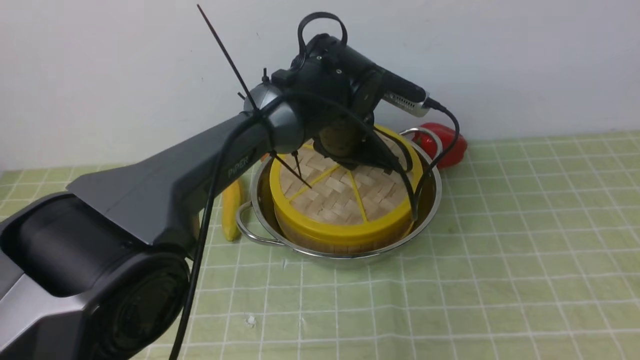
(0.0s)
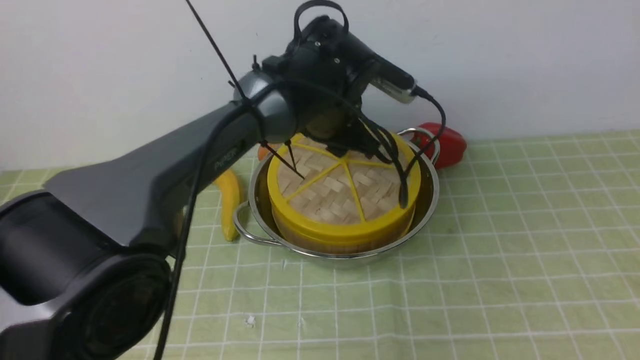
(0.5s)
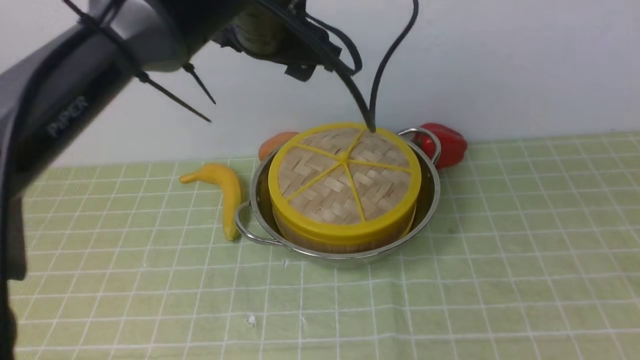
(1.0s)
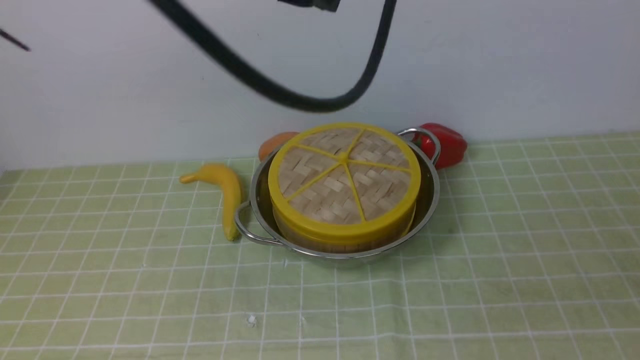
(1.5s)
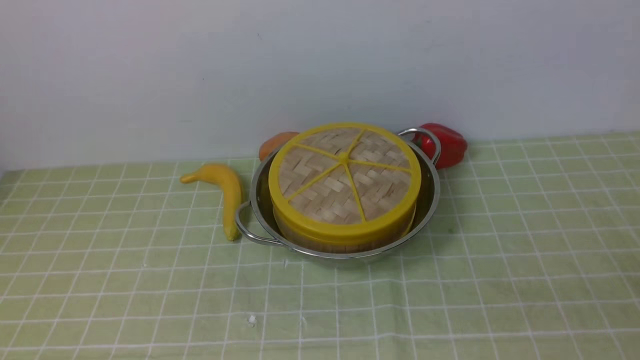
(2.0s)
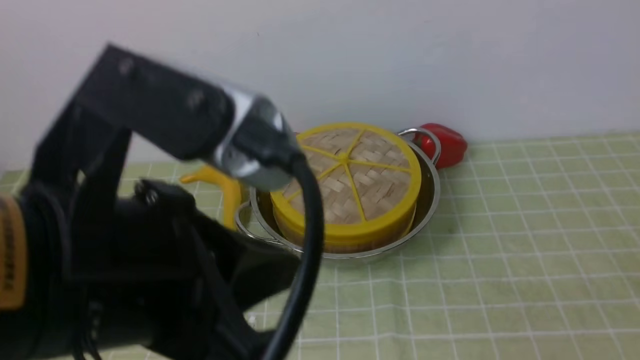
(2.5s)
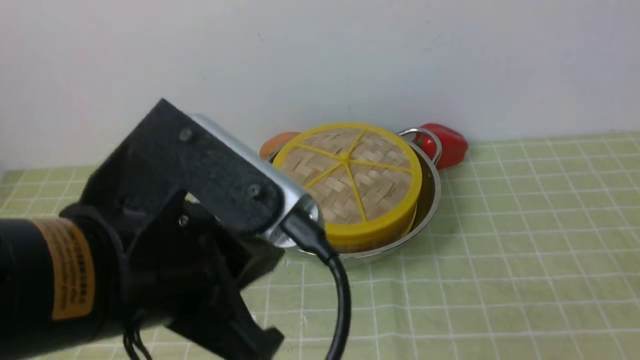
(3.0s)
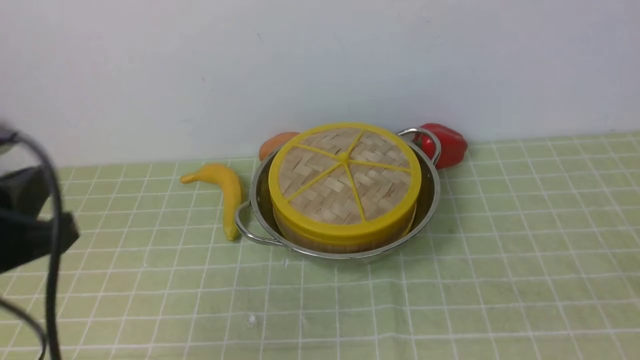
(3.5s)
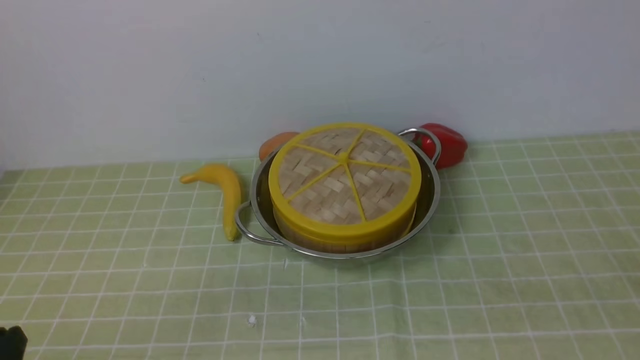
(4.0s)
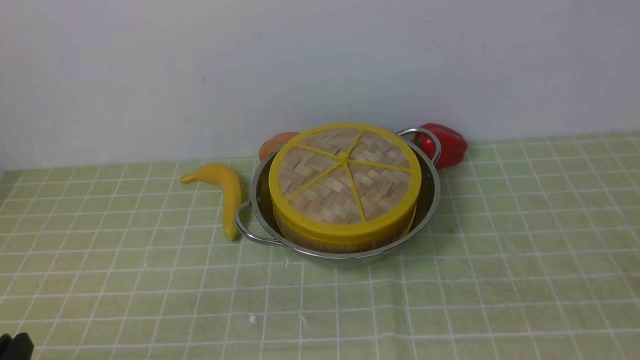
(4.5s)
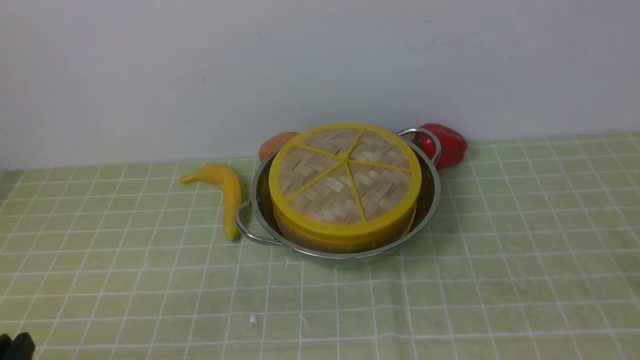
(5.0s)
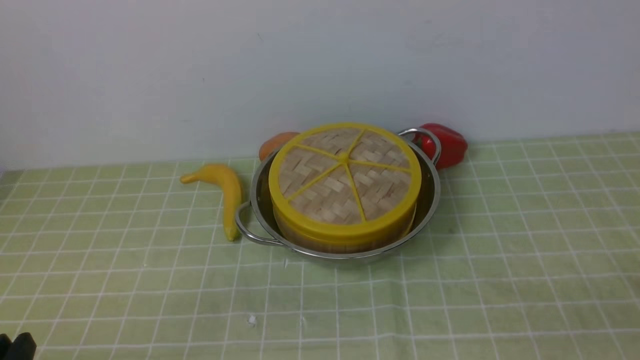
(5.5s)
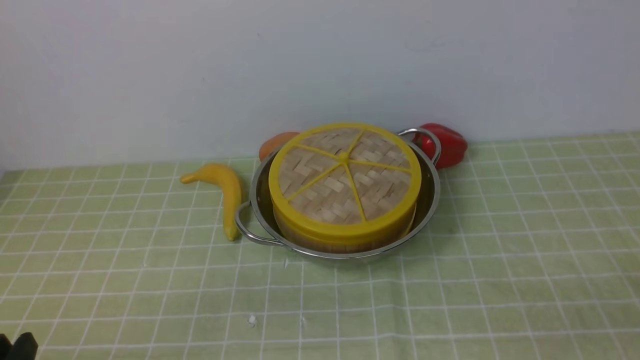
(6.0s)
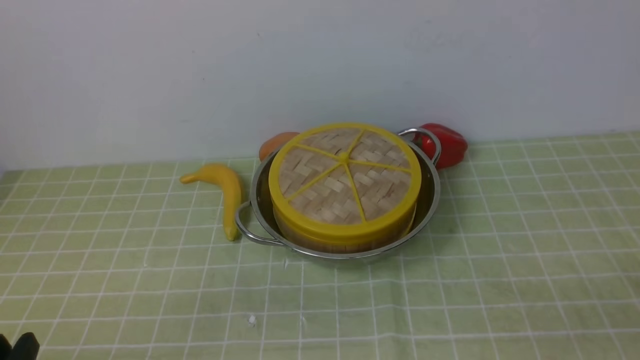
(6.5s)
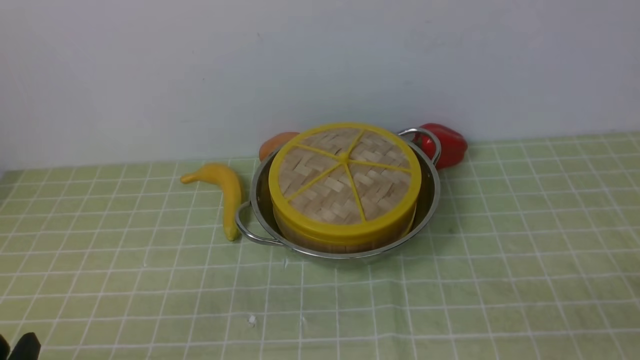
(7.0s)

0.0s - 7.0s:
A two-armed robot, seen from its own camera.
Task of the whole recording: place the steamer in the pot on the green tablecloth, and put the lid on the steamer.
0.0s - 2.0s: The left gripper goes about 40 cm upward and backward, and opens, then closes once more. Meanwhile the right gripper heads downward and backward, covering roughly 15 cm, and closes its fingers.
2.0s - 3.5s: The left gripper is displaced downward and to the left by roughly 25 cm.
3.5s - 5.0s: The left gripper moves downward and backward, about 15 cm.

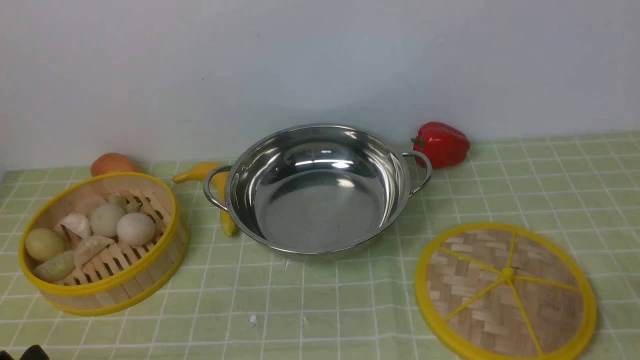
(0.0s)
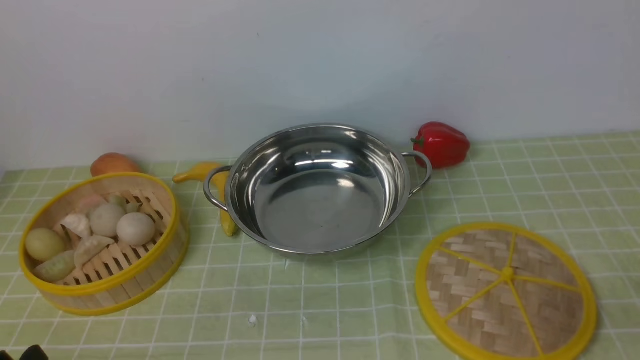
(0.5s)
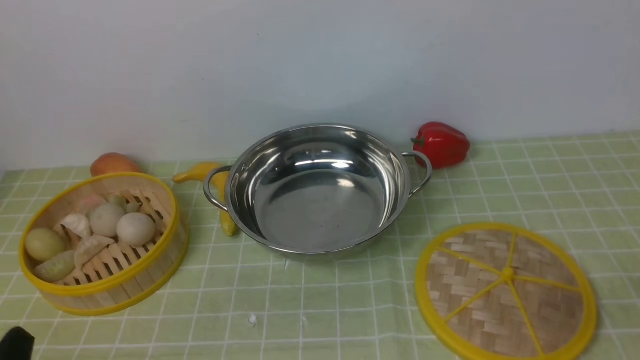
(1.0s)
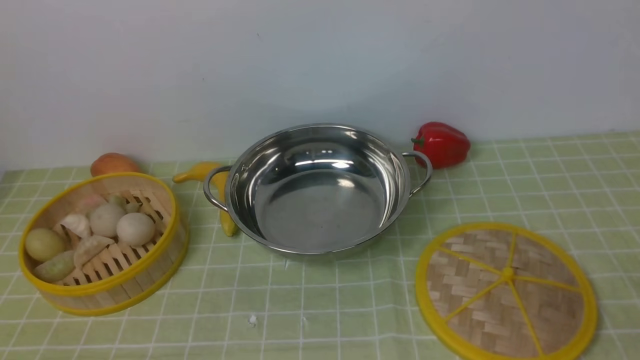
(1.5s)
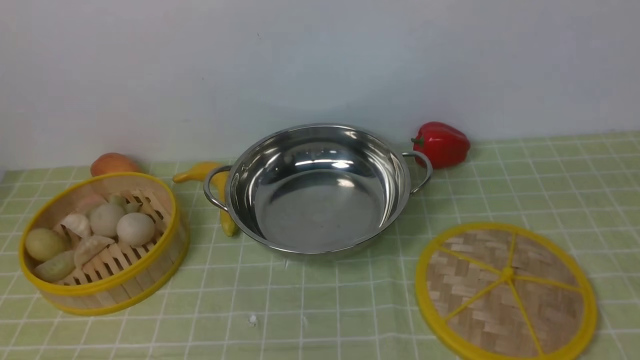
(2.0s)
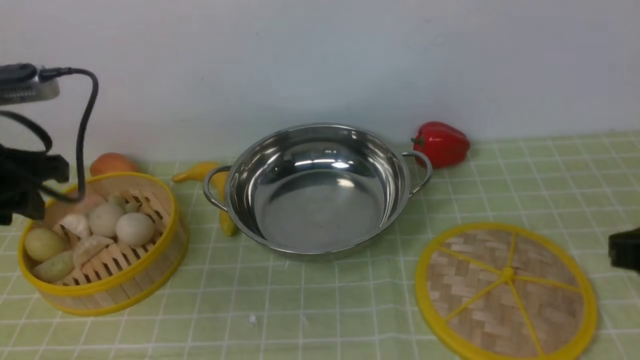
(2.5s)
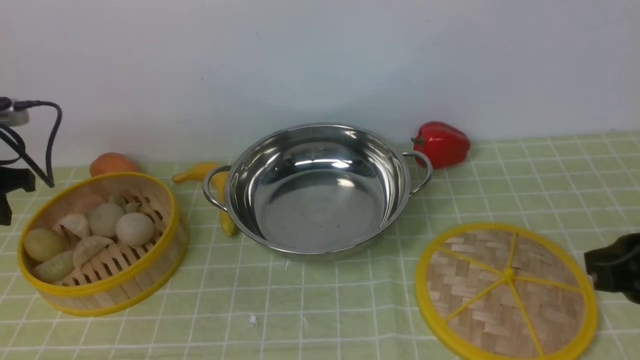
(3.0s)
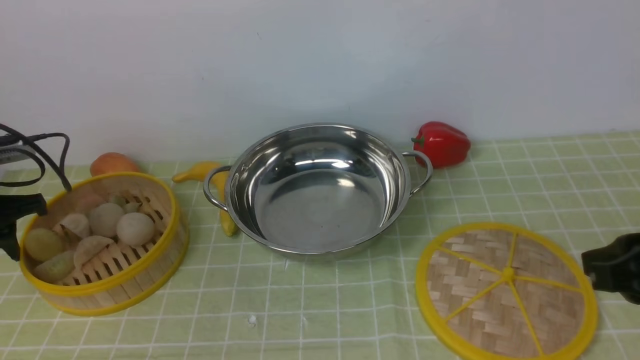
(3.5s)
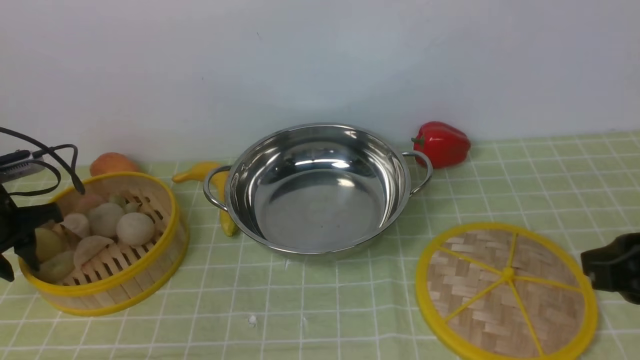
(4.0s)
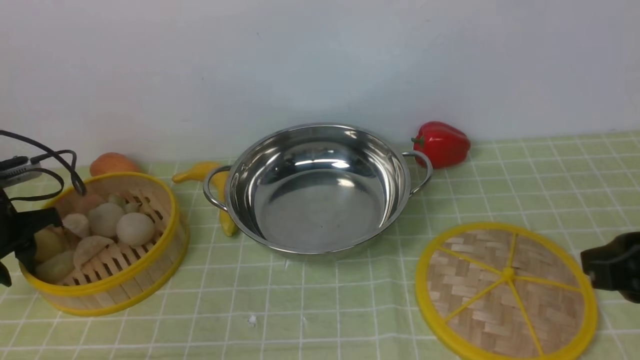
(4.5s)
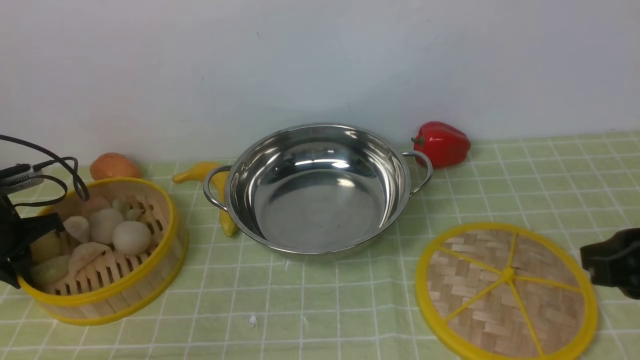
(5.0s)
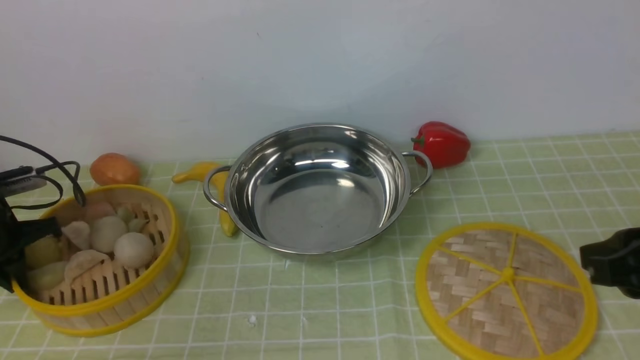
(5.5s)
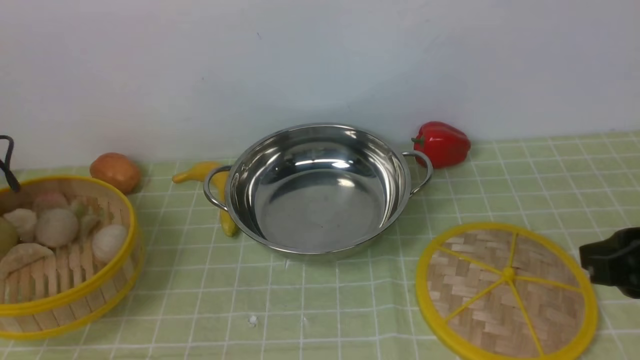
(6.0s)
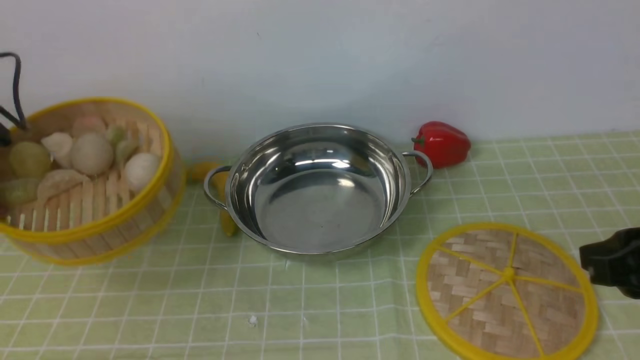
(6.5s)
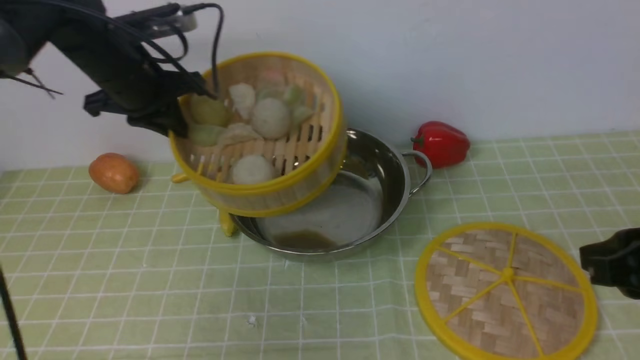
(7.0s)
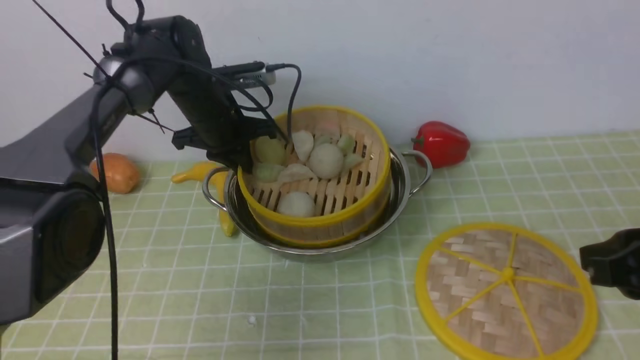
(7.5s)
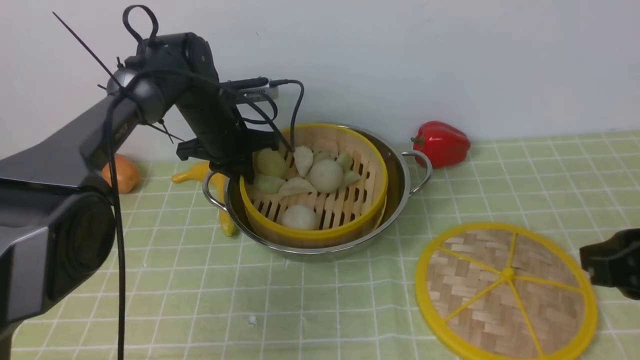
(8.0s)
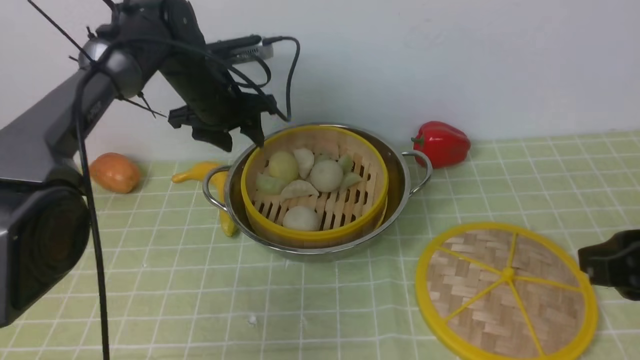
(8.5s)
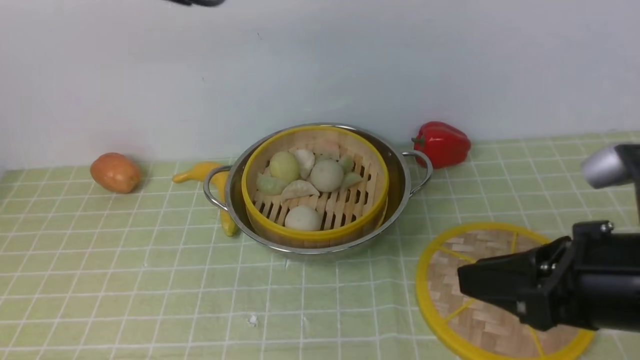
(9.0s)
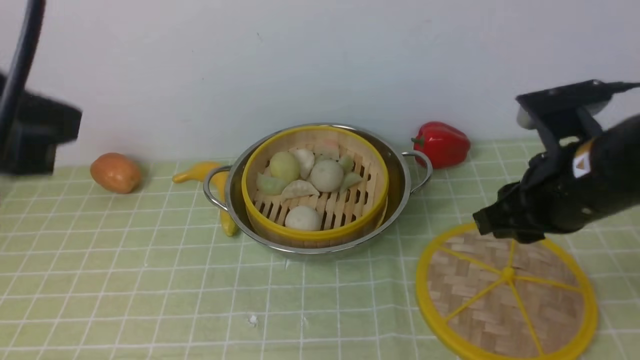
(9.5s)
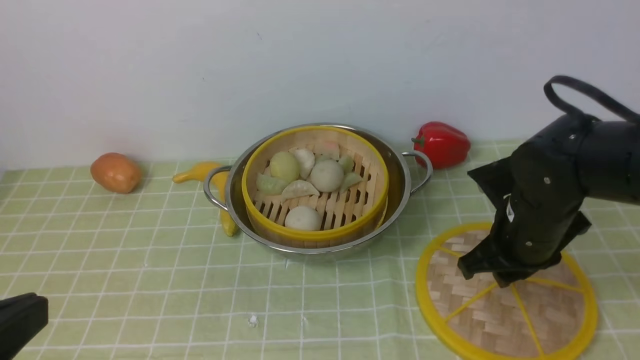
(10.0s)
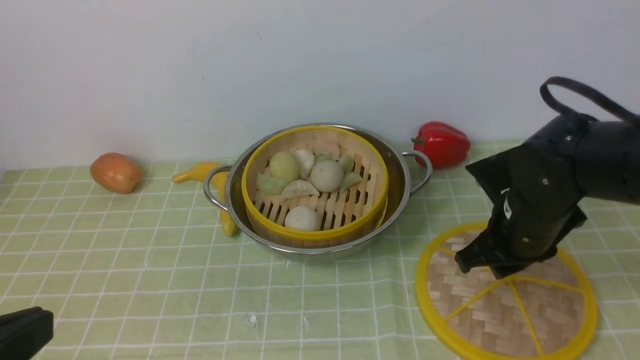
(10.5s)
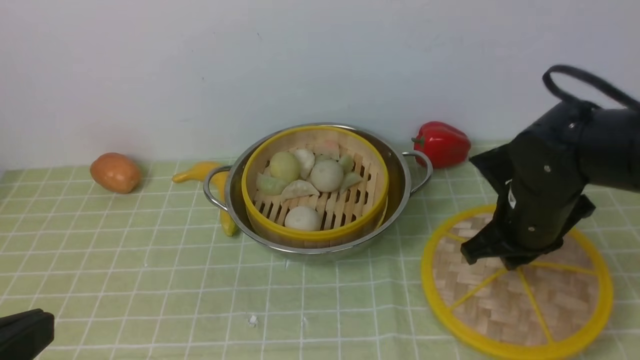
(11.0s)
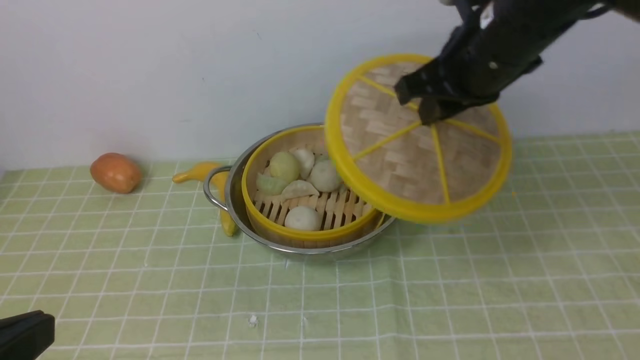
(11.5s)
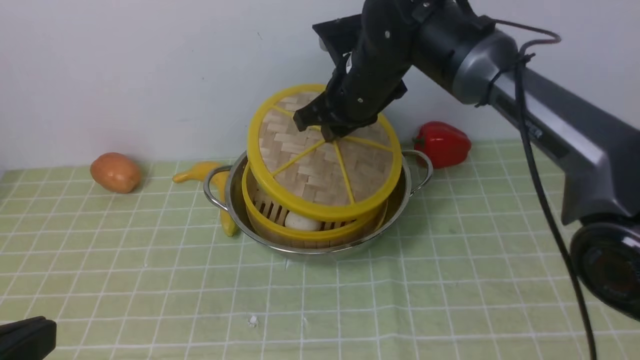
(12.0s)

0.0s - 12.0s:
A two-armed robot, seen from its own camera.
Task of the whole recording: place the steamer in the pot on the green tablecloth, and put the lid on the steamer.
Step, 0.0s - 6.0s: use the left arm to lift the steamer closest to it.
Step, 6.5s - 9.0s: use the left arm to put the steamer into the iron steamer pot in the middle.
Step, 9.5s - 11.0s: use the right arm to lift the lid of the steamer.
2.0s - 4.0s: The left gripper moves forward, downward and to the left, approximately 35 cm, while the right gripper travels forward and downward by approximately 10 cm.
4.0s - 6.0s: The left gripper changes place by some 5 cm, and closes up.
6.0s - 8.0s: The left gripper is displaced to the right and forward by some 30 cm.
8.0s - 10.0s: The right gripper is displaced forward, to the left and downward by some 15 cm. Meanwhile the left gripper moves backward, roughly 40 cm, and closes up.
10.0s - 12.0s: The right gripper travels to the left, forward and upward by approximately 20 cm.

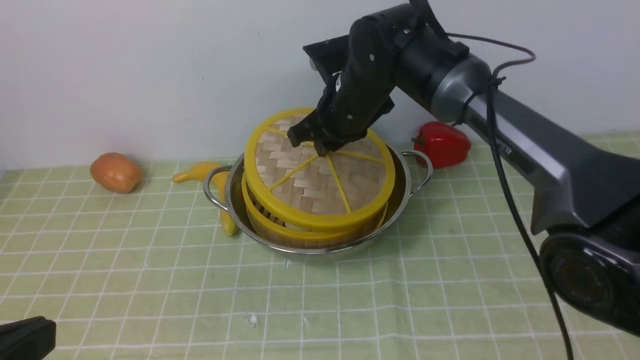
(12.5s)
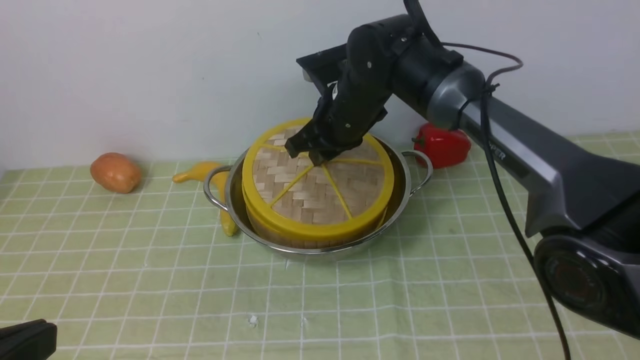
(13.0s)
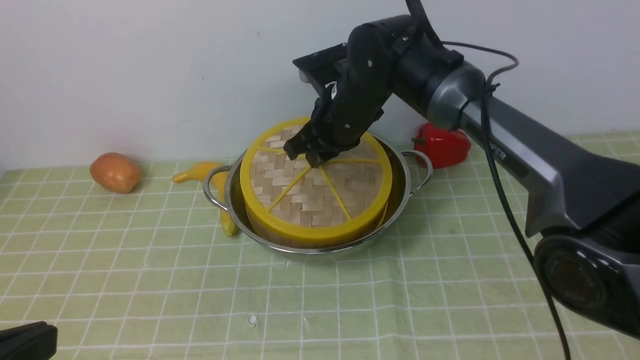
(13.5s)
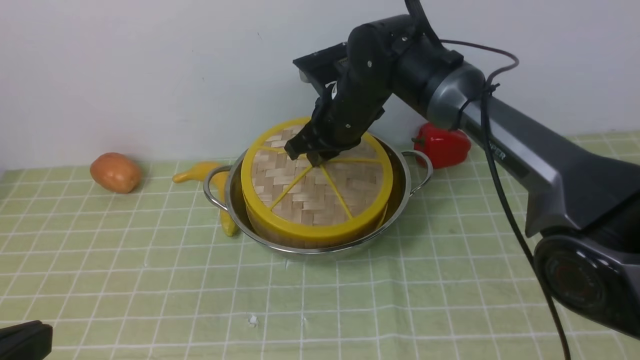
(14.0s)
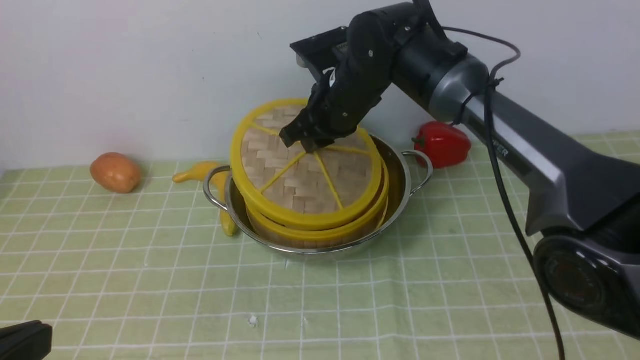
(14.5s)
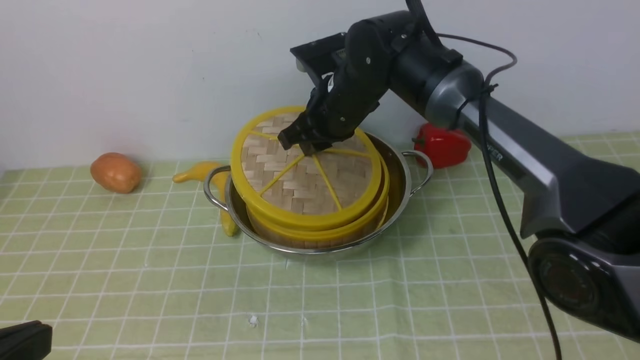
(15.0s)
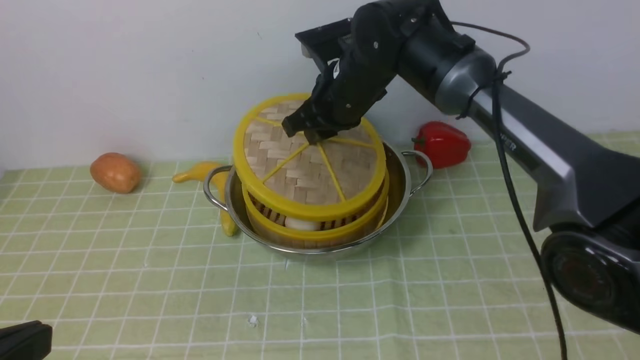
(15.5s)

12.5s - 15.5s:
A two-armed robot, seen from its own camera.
Task of the whole recording: place the steamer in the pot on the green tablecloth, and put the lid on the steamer.
12.5s - 15.5s: The grippers make only small movements.
